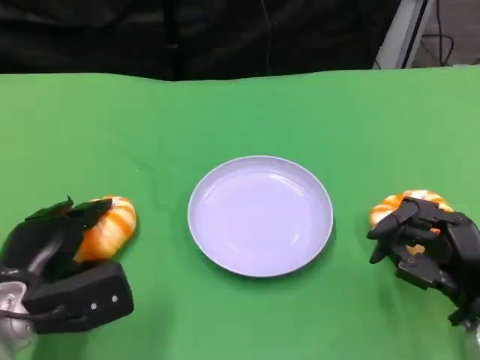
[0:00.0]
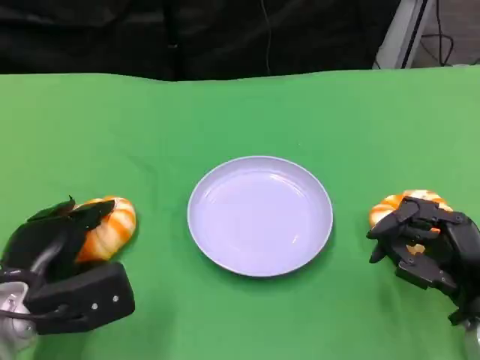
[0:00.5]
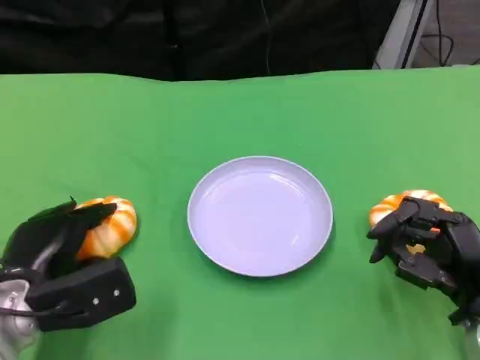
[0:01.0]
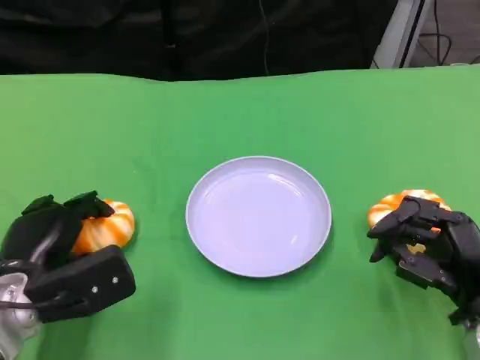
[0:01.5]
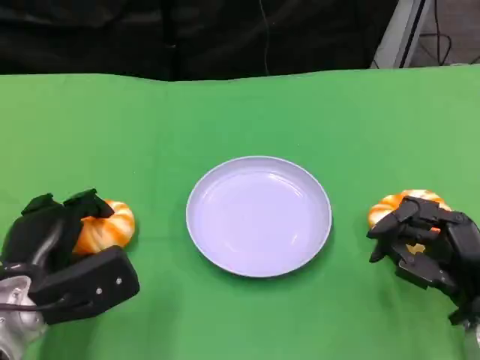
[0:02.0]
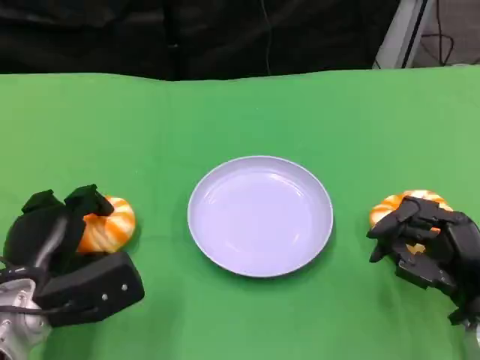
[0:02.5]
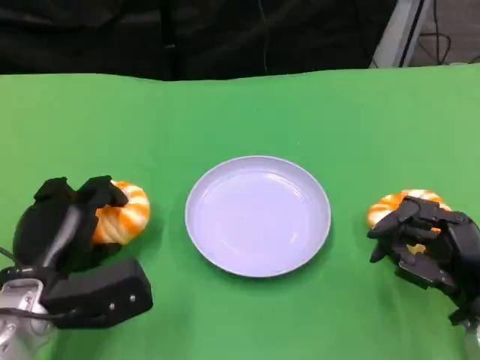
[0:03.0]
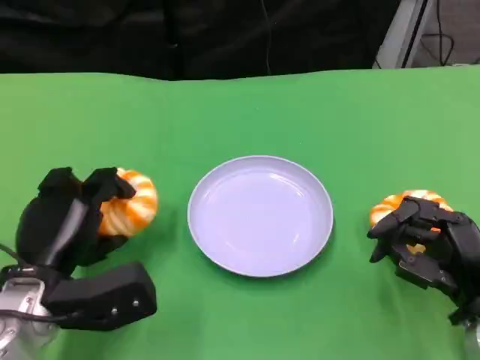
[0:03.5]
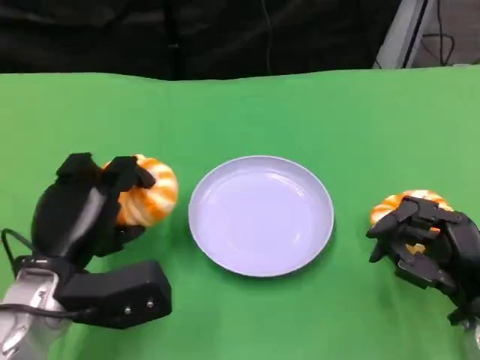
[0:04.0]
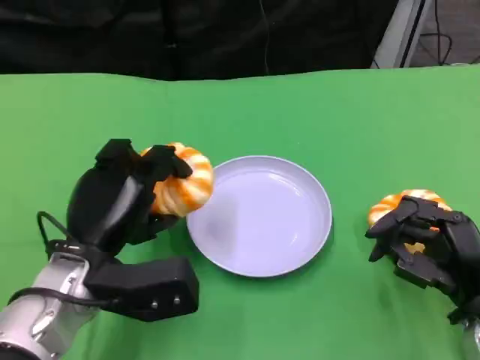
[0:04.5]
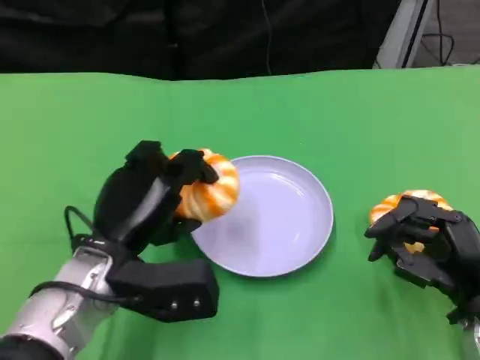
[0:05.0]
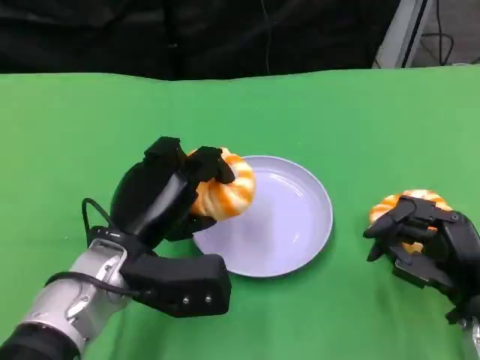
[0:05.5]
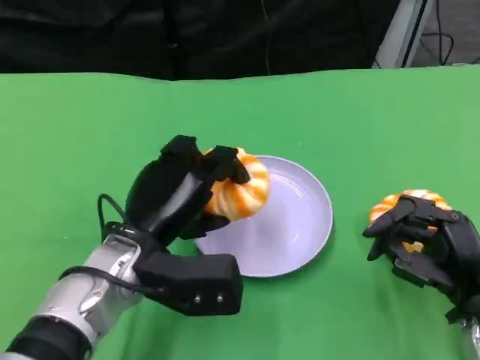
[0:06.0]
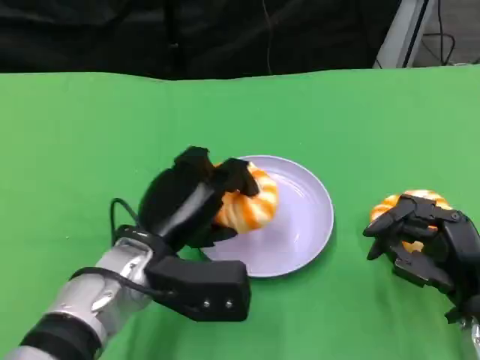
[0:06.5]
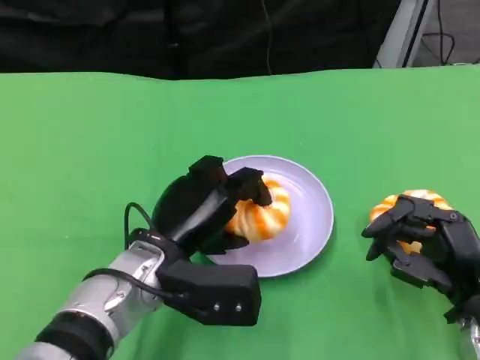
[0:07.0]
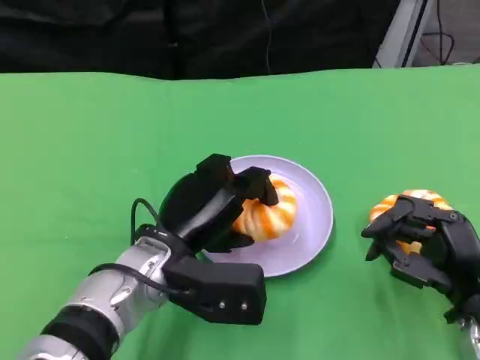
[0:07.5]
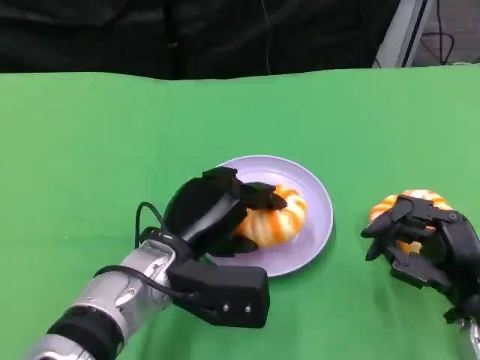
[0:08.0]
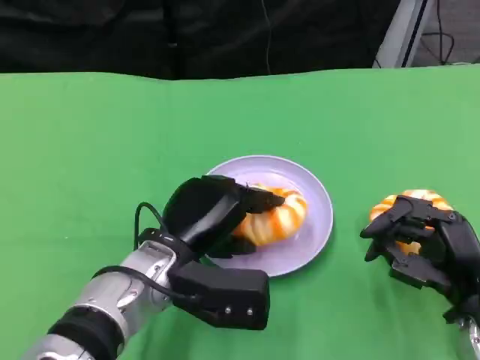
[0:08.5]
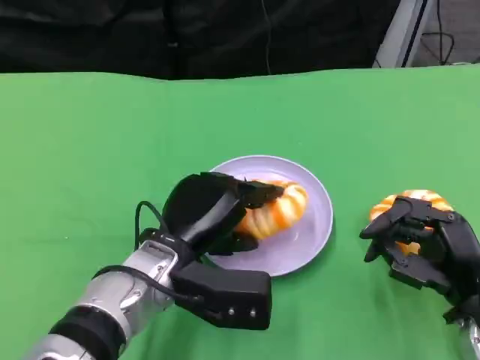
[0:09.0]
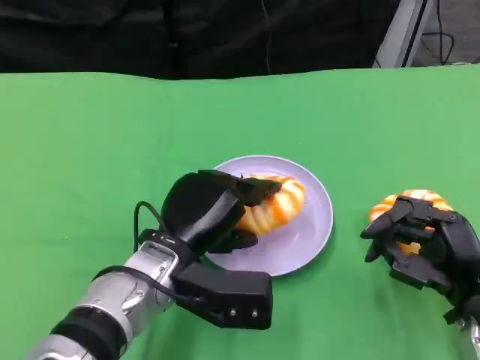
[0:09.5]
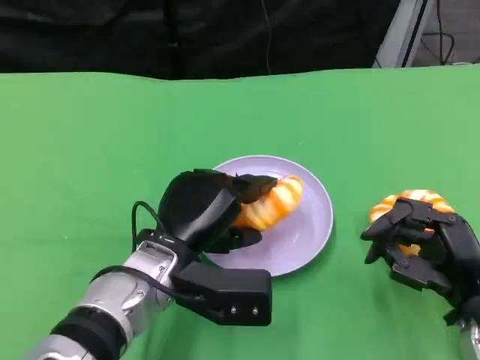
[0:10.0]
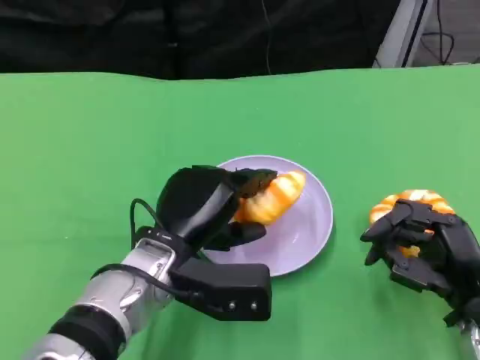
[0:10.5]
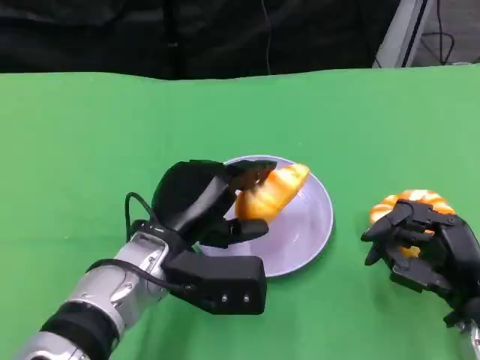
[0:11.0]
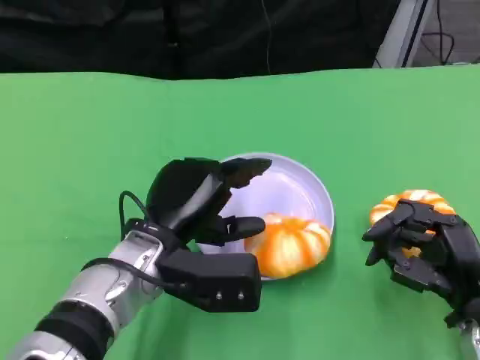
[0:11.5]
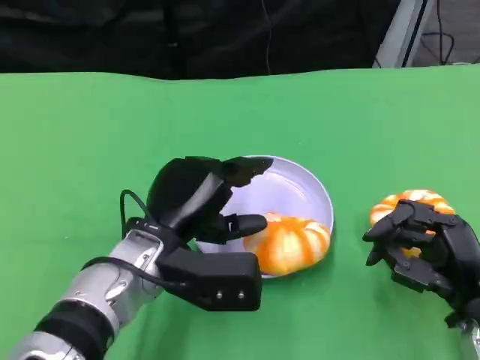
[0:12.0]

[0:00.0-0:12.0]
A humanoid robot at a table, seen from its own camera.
Task of the whole recording: Grasp the bread from the table and place it into the plate.
0:00.0 to 0:02.0: There are only small adjustments of the hands.
0:04.0 to 0:06.0: The left hand travels to the right by about 5 cm.
0:06.0 to 0:12.0: The hands stay close to where they were, moving slightly.

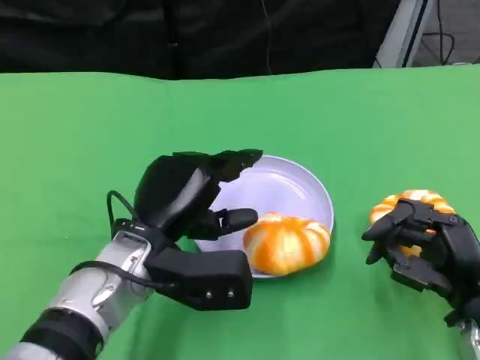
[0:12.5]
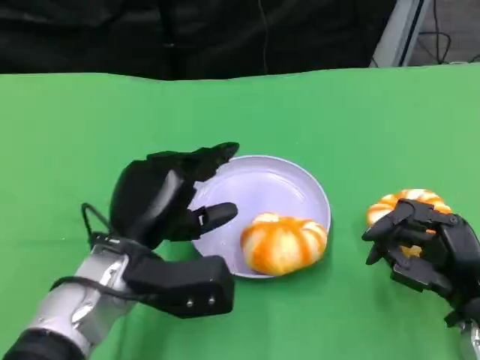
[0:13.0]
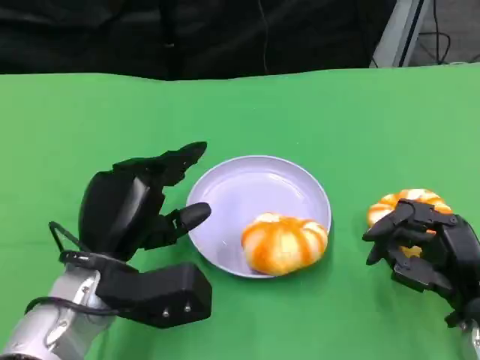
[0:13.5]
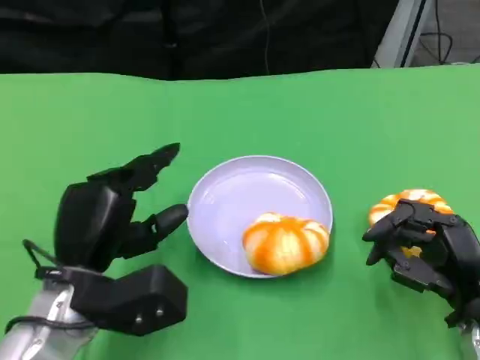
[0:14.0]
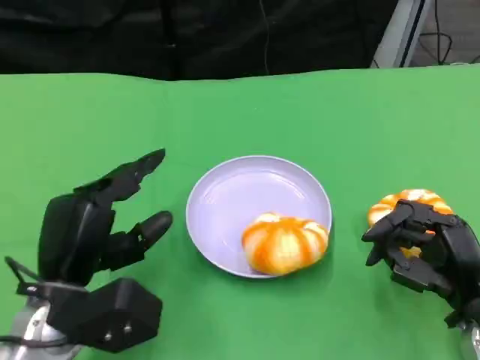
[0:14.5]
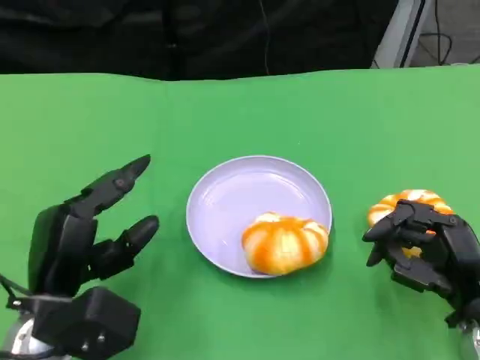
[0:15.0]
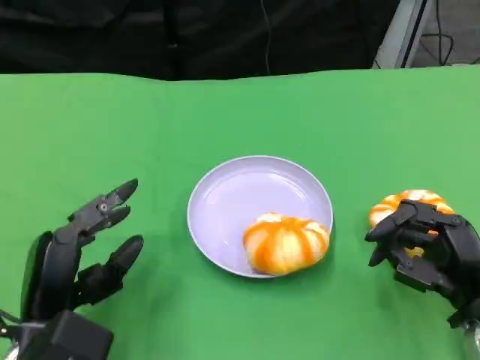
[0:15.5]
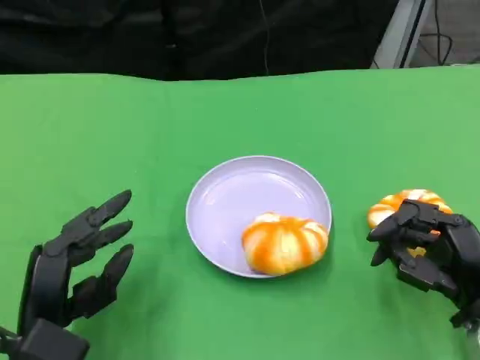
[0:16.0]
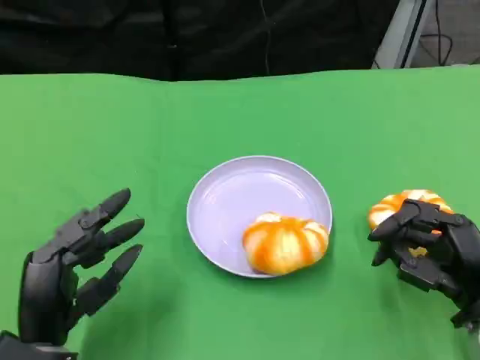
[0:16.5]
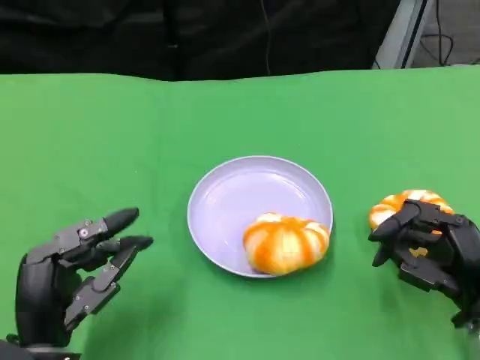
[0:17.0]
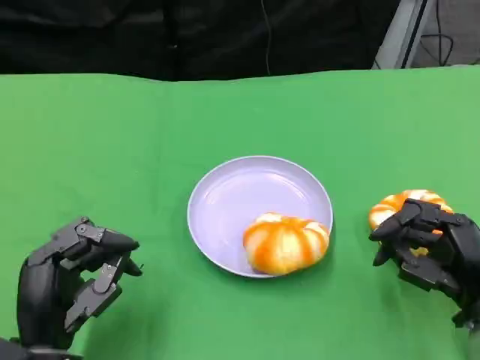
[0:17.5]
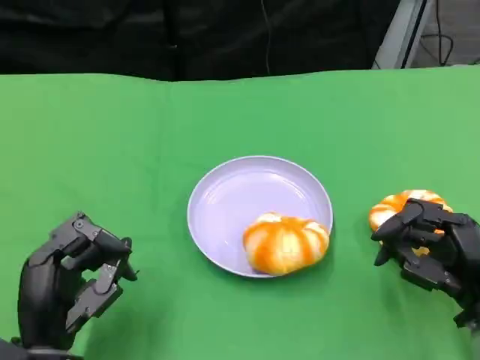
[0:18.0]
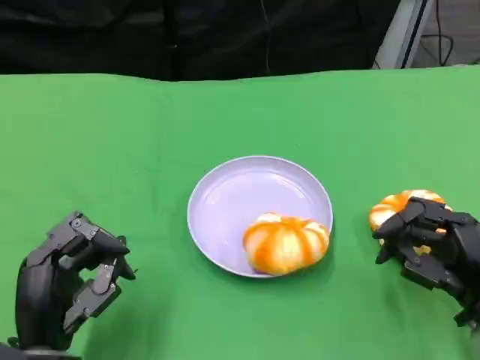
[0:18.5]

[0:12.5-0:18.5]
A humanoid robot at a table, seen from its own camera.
Task of the whole recording: Grasp the bread from the table and place it into the plate.
0:12.5 to 0:14.5: The left hand moves to the left, about 5 cm.
0:14.5 to 0:16.5: The left hand shifts by about 5 cm.
0:16.5 to 0:18.5: There are only small adjustments of the hands.

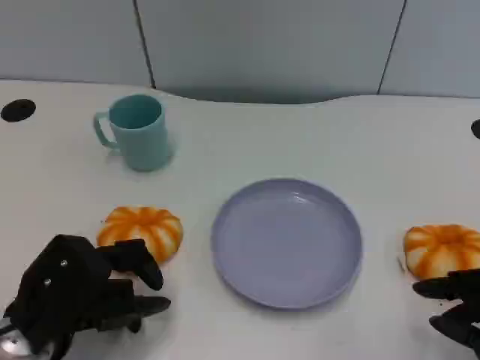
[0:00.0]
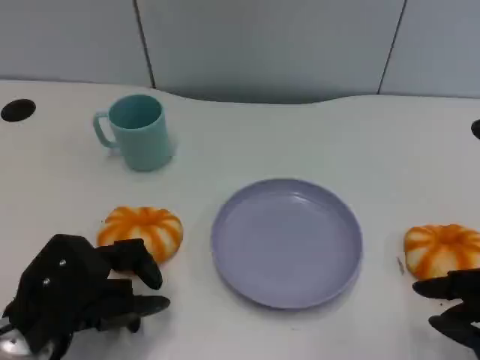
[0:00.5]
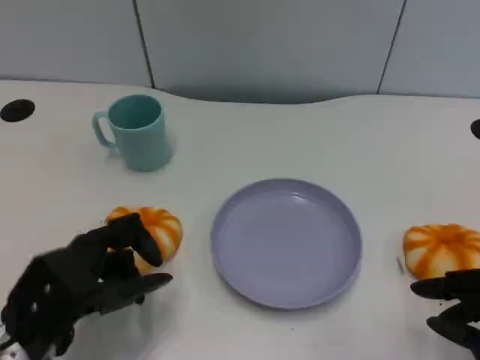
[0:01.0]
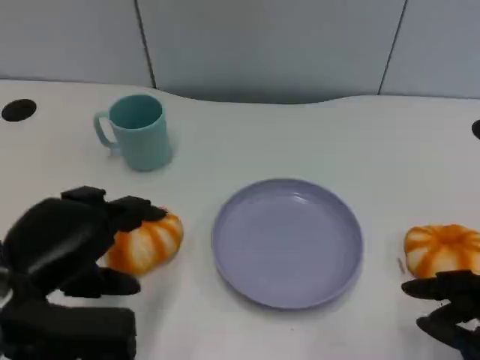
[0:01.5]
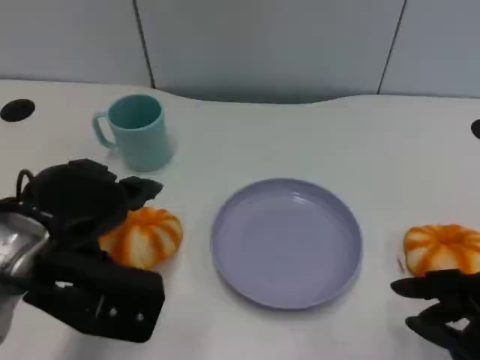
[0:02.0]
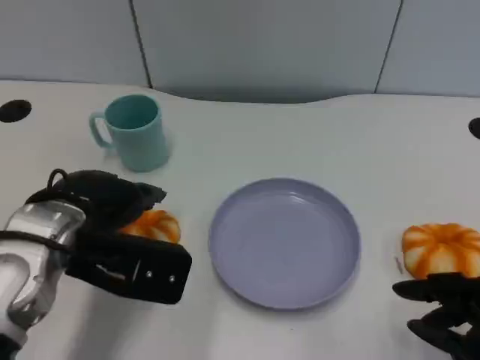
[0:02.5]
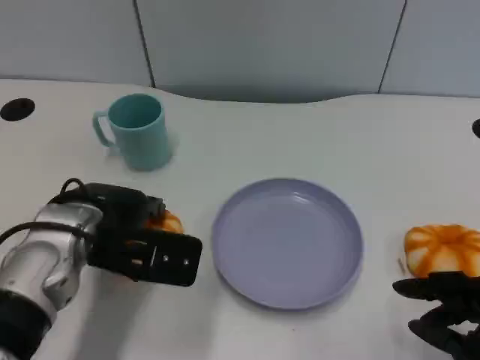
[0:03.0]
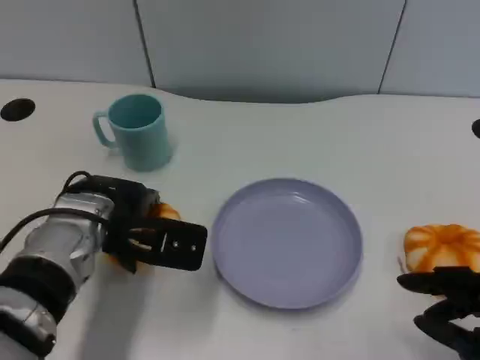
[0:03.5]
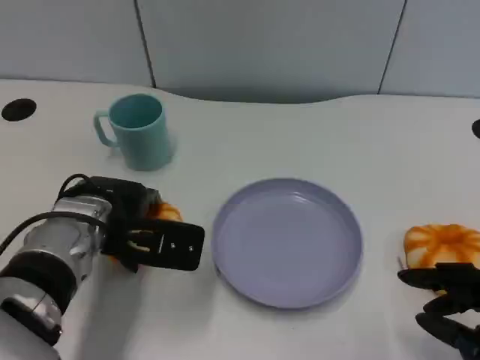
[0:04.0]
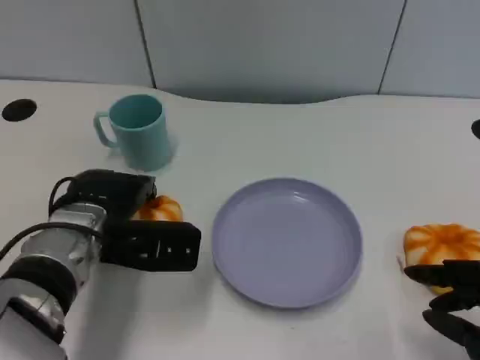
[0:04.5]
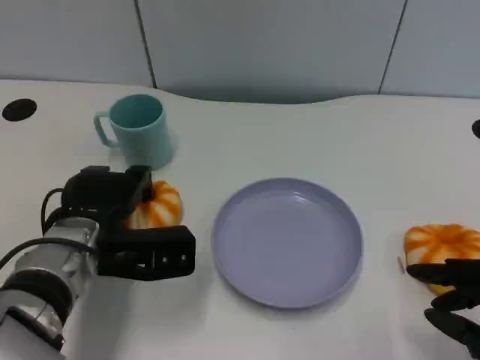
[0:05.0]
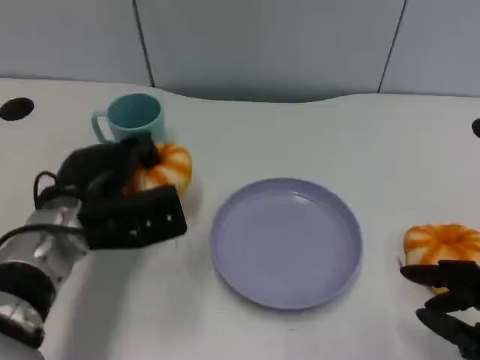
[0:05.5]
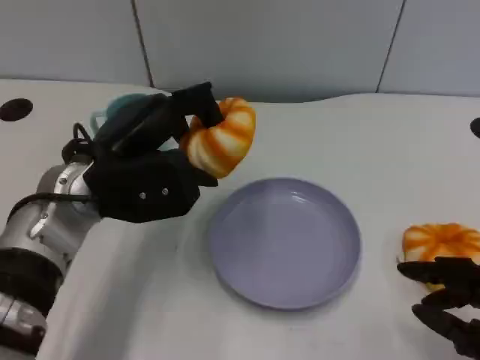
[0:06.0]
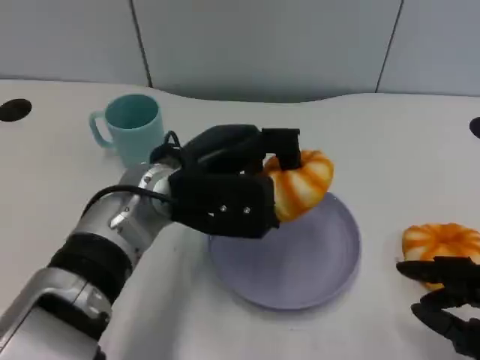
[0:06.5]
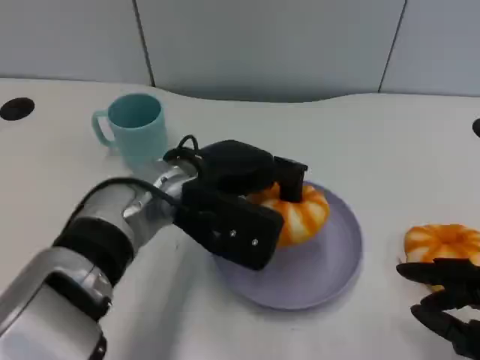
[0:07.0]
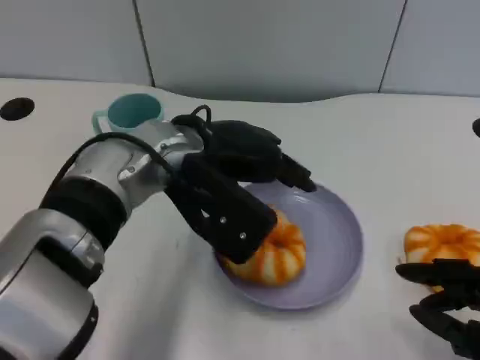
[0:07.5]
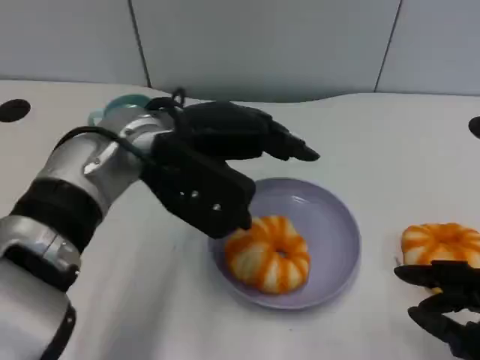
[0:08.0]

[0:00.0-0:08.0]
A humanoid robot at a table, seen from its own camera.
Task of the whole recording: Grasp the bread from the table and place it into the plate.
0:00.0 to 0:02.0: The left hand travels upward by some 10 cm.
0:02.0 to 0:04.0: The left hand is displaced downward and forward by roughly 10 cm.
0:04.0 to 0:06.0: The left hand moves upward, approximately 5 cm.
0:06.0 to 0:08.0: The left hand changes place by some 5 cm.
